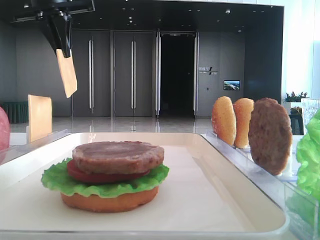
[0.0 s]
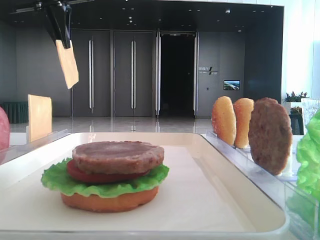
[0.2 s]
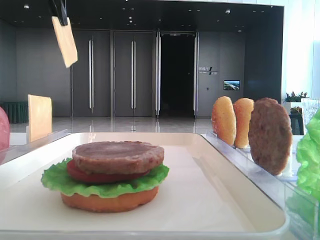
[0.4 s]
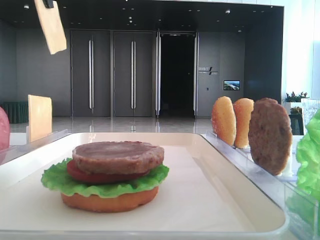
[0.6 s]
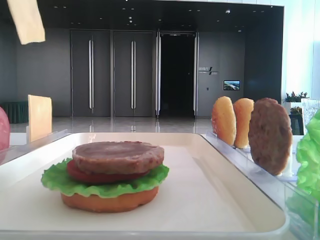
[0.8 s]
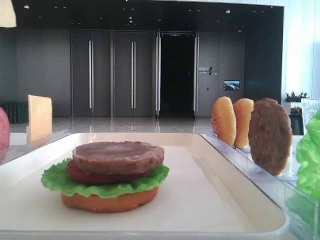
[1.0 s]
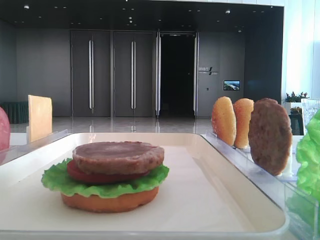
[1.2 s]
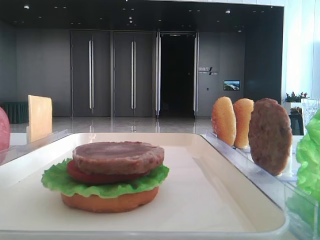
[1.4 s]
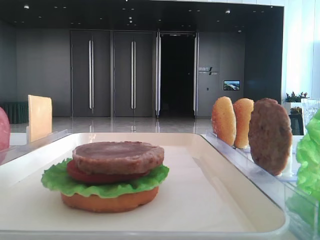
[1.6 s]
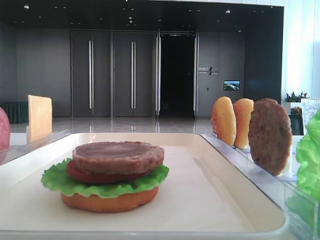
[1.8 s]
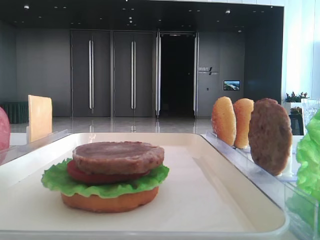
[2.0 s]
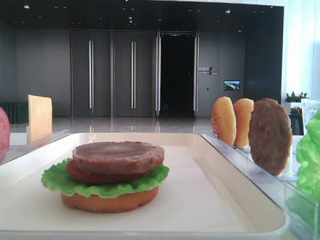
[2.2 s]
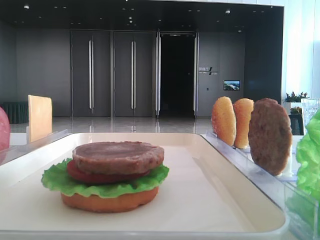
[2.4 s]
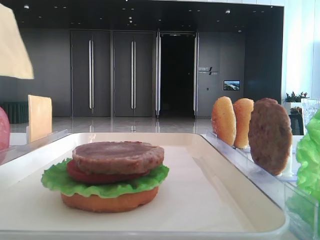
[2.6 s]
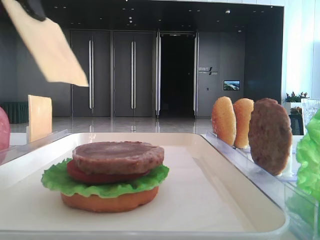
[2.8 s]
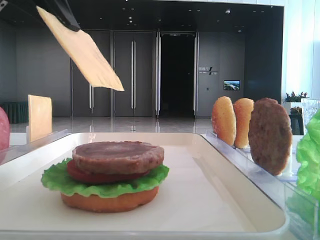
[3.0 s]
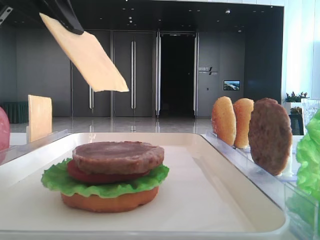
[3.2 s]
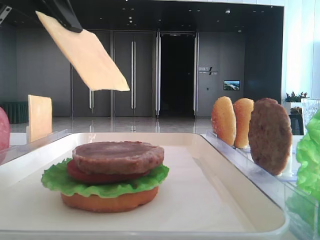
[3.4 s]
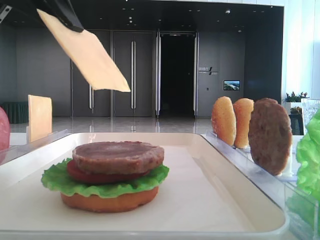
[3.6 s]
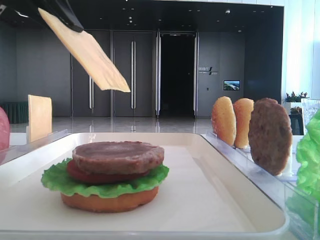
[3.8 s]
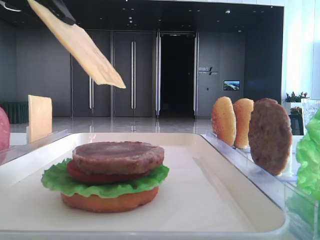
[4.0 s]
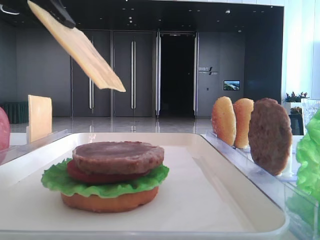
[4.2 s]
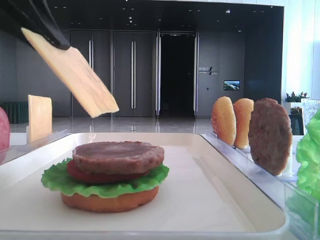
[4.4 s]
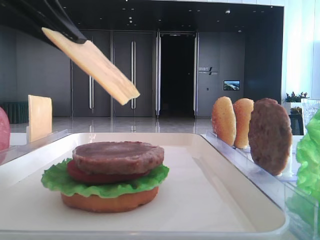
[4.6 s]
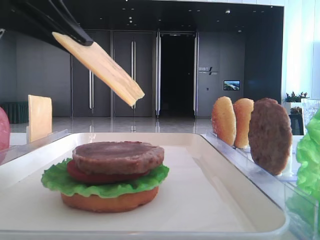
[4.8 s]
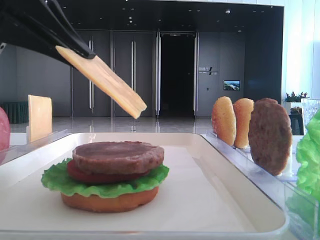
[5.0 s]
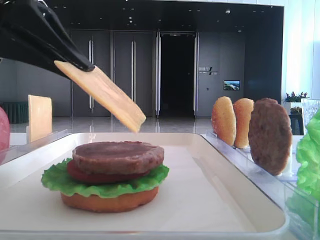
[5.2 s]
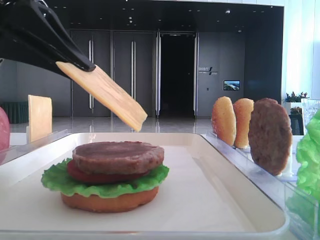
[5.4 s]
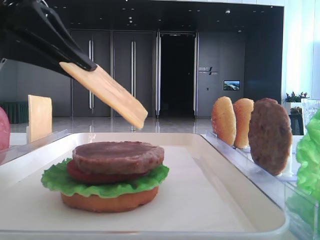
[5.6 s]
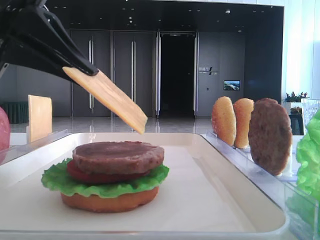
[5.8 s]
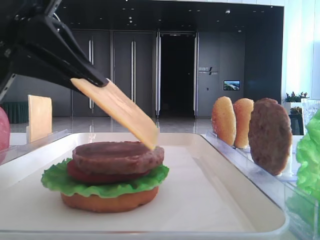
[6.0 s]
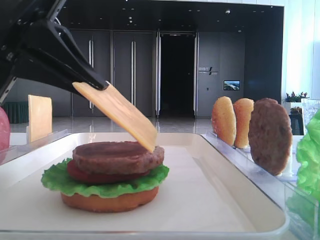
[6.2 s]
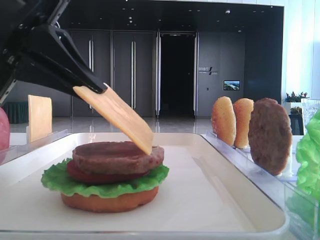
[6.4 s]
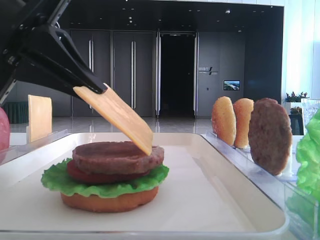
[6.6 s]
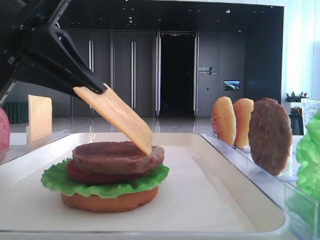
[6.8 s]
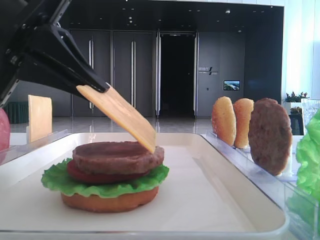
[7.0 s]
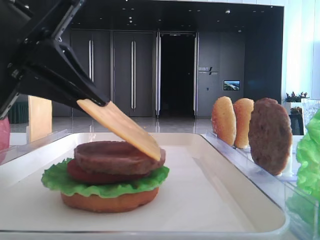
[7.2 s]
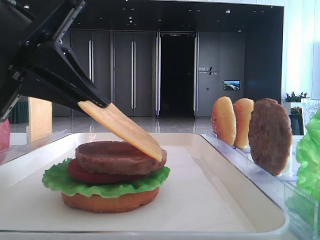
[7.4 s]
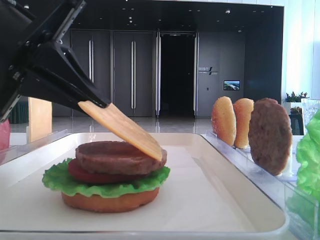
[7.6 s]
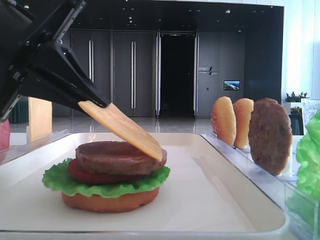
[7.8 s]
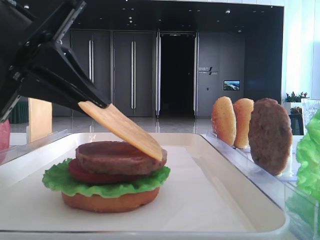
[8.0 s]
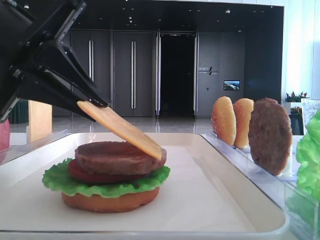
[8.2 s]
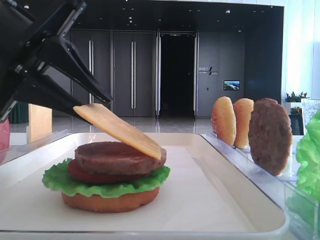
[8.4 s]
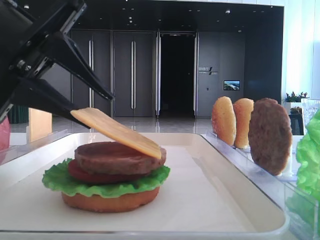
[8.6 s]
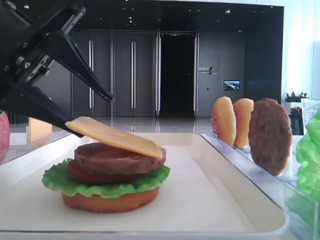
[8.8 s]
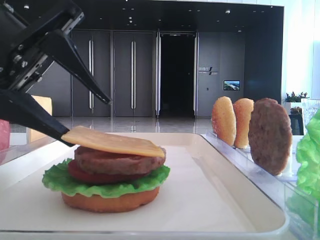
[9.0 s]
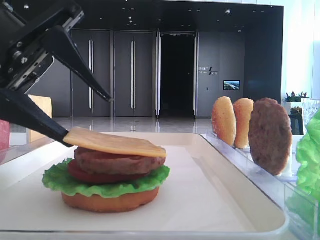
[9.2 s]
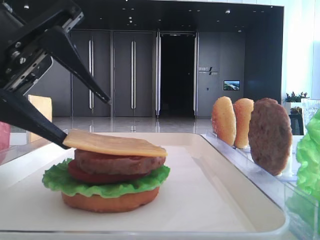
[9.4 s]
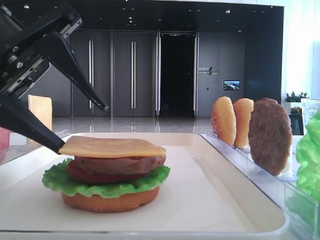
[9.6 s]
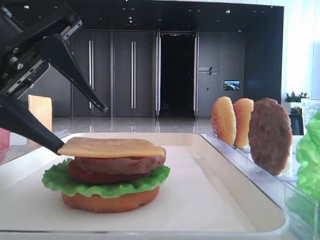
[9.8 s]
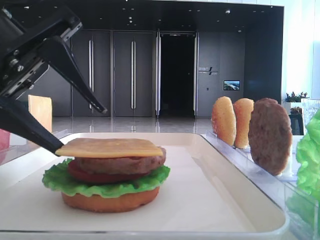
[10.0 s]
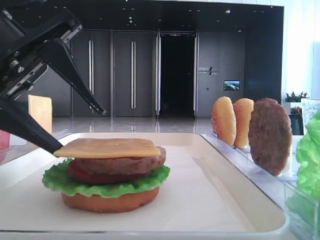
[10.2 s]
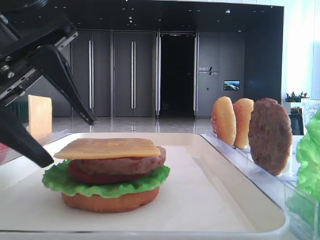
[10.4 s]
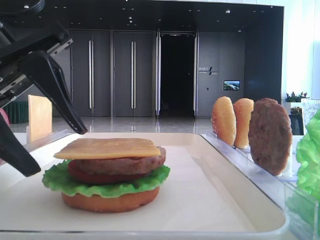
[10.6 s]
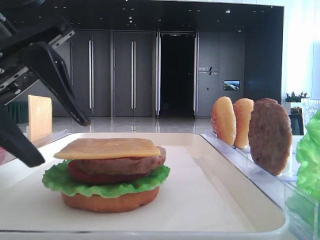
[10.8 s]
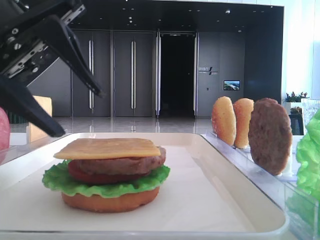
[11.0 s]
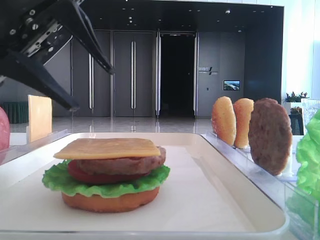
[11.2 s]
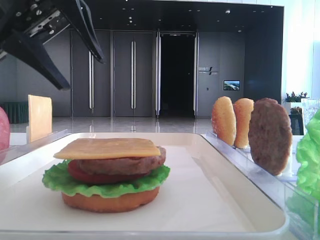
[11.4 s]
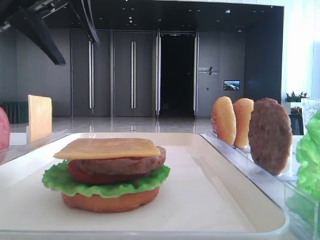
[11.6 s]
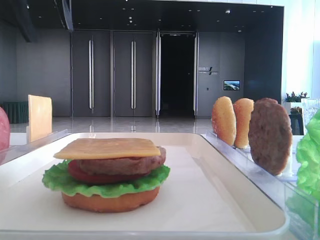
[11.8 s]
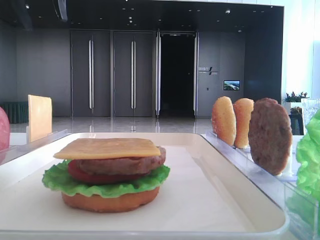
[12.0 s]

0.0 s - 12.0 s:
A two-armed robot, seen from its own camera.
Step, 0.0 s - 10.2 s: Place the cheese slice on the patty with the left hand.
0.0 s - 1.6 s: The left gripper travels backward by some 25 cm.
1.6 s - 3.0 s: The left gripper moves downward, forward and to the right, about 15 cm.
3.0 s - 4.4 s: The left gripper shifts by approximately 5 cm.
4.4 s - 6.0 s: The left gripper heads downward, covering some 5 cm.
6.0 s - 7.6 s: The grippers move only a little.
7.6 s - 9.0 s: The left gripper opens its fingers.
9.0 s - 10.4 s: The grippers move only a little.
10.4 s - 12.0 s: The left gripper is displaced upward and forward by approximately 20 cm.

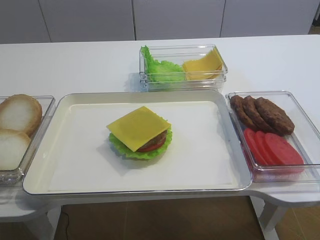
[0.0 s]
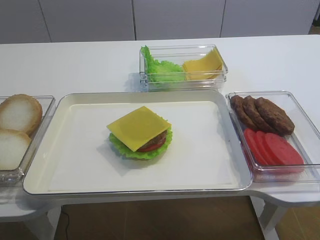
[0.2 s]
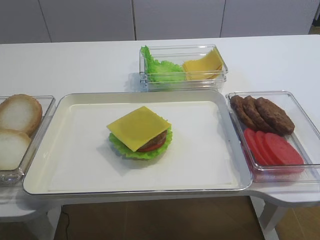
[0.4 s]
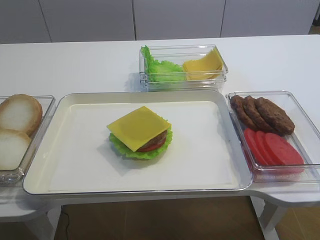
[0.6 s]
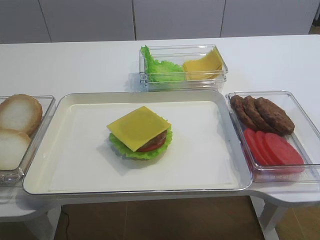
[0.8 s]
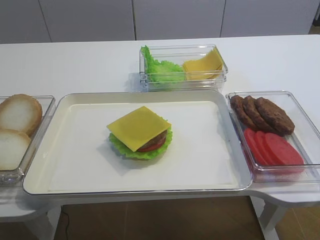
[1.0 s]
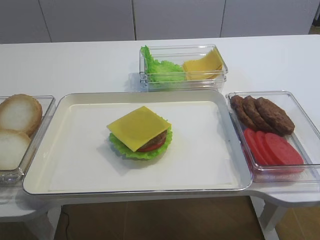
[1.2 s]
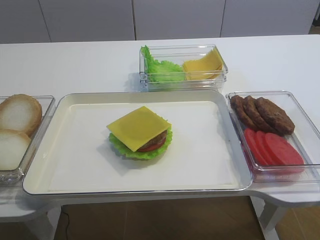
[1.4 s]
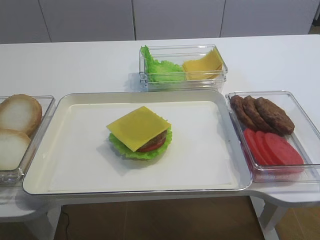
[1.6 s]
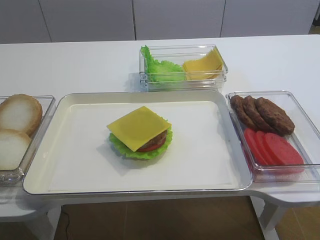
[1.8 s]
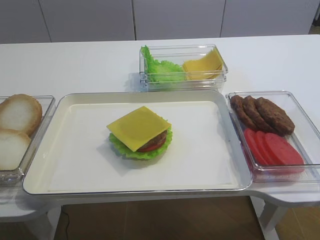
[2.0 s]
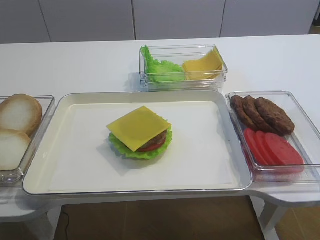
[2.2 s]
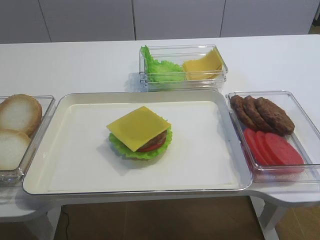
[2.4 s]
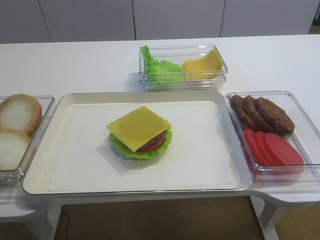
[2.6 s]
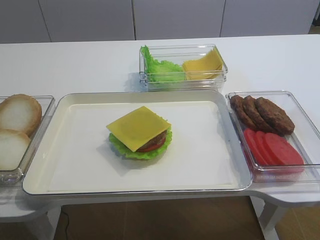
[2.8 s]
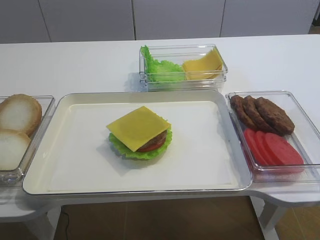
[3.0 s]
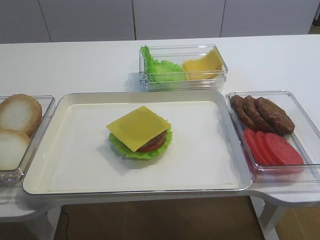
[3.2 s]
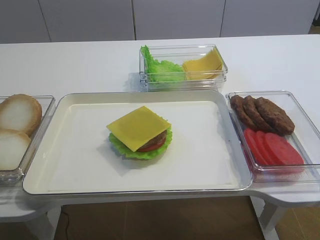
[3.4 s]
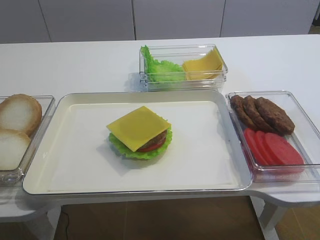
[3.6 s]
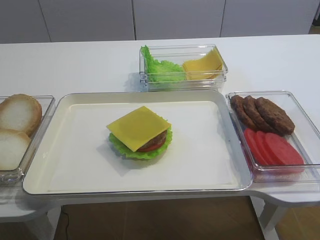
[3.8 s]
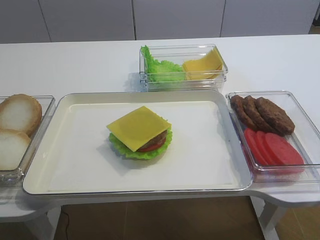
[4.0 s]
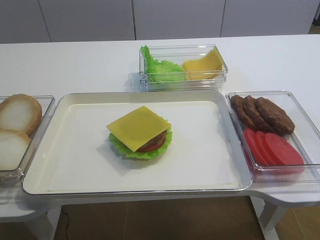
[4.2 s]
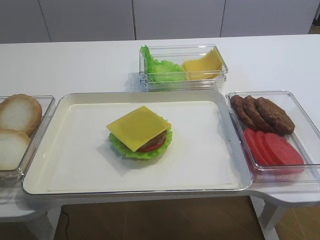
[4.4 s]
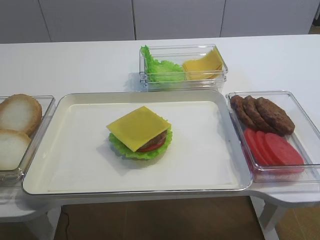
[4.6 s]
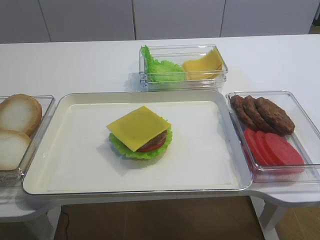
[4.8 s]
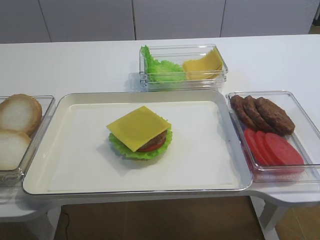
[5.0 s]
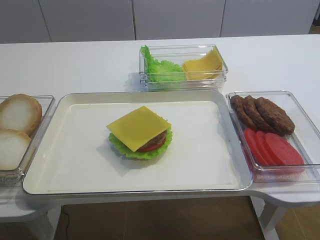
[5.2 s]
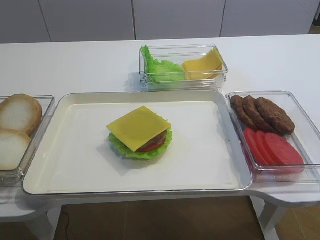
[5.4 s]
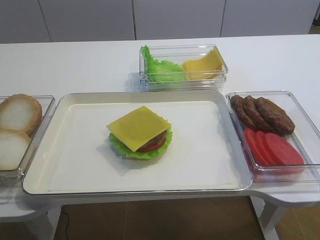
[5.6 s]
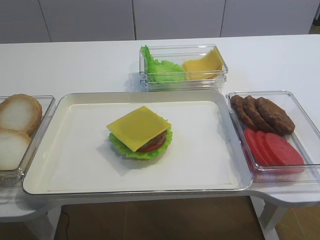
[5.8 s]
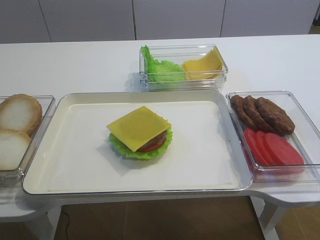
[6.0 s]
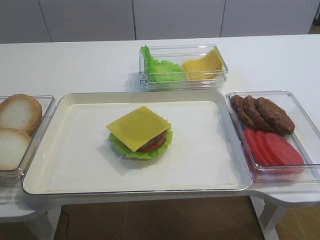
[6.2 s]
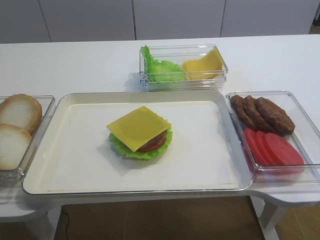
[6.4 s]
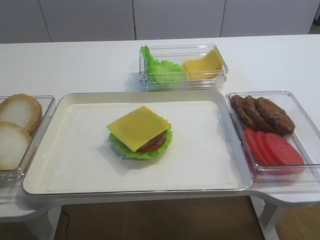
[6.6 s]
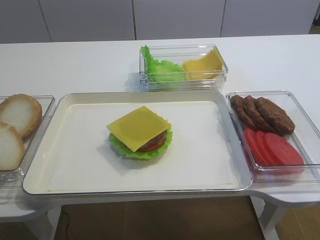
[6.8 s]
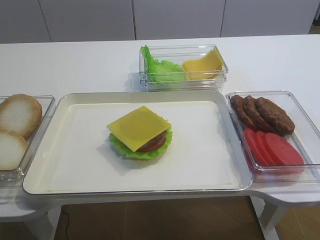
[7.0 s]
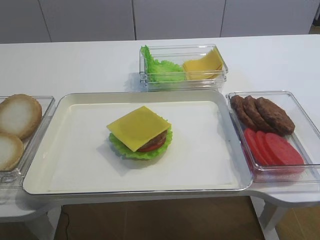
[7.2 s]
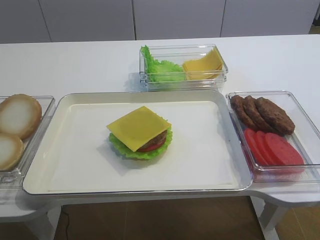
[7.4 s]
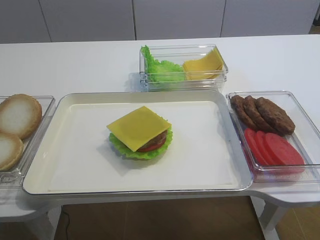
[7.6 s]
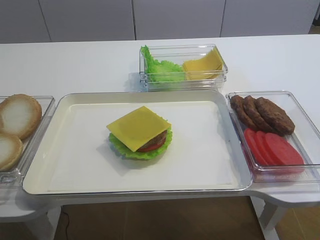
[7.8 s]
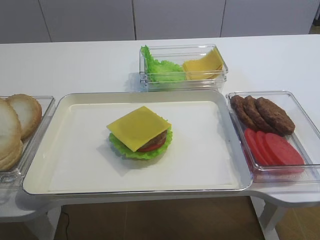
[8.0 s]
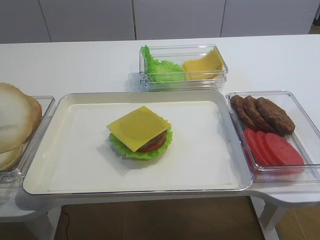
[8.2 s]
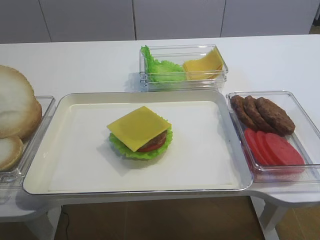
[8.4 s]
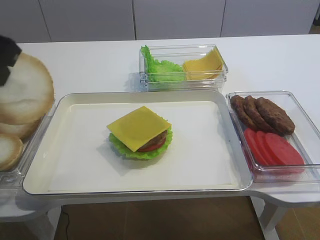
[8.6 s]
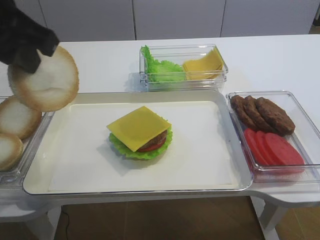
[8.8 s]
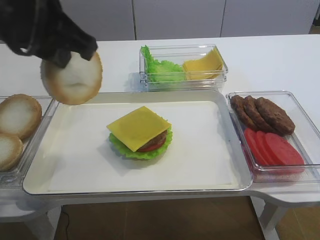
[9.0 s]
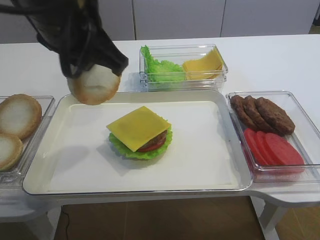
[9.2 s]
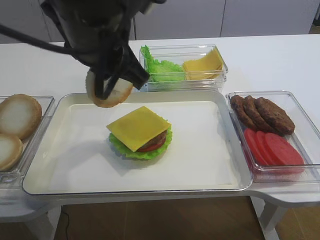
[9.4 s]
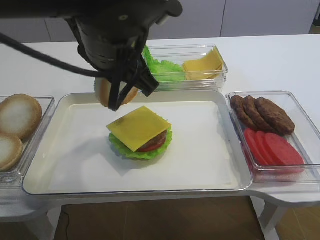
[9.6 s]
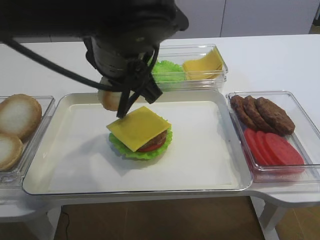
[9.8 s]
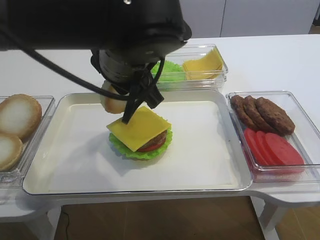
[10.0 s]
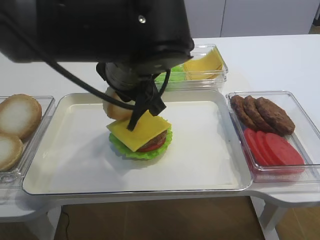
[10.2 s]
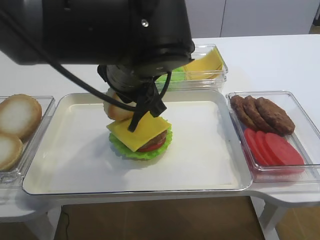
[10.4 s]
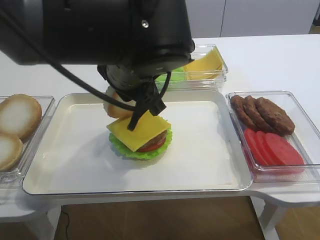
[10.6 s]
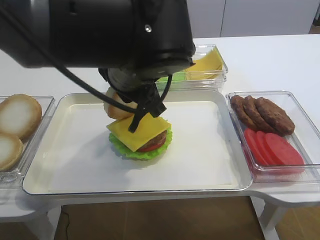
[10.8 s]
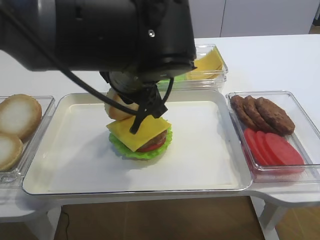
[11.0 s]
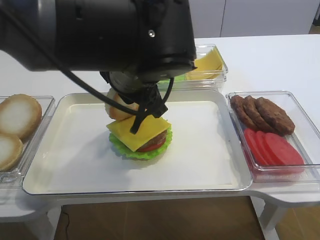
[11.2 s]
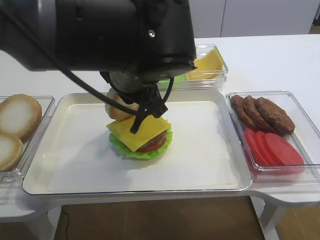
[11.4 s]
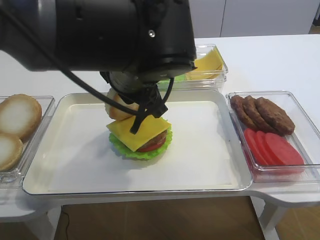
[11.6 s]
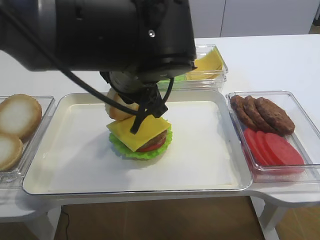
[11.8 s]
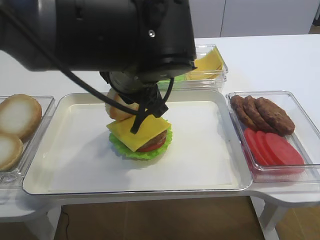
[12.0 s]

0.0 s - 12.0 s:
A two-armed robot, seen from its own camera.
Step, 0.0 s - 8.6 s: Pick up the hamburger lid with the left gripper.
6.0 s - 7.6 s: The left gripper heads upward and backward, covering some 10 cm.
7.6 s - 9.0 s: The left gripper moves to the right, approximately 20 cm.
9.0 s - 10.4 s: The left gripper travels to the right and downward by approximately 15 cm.
10.4 s - 12.0 s: Both grippers stay put.
